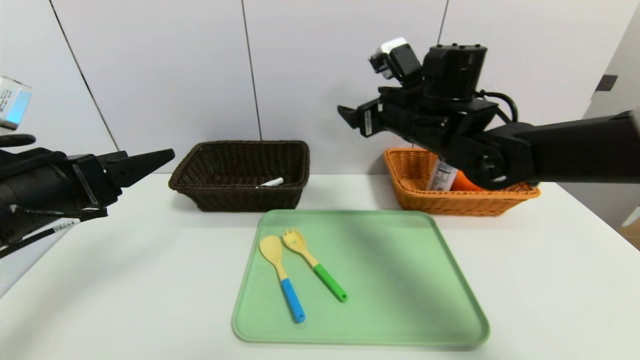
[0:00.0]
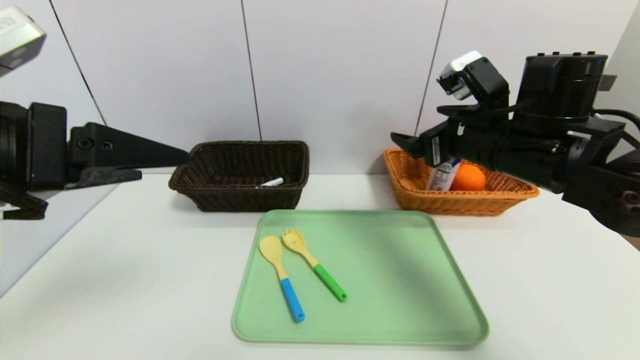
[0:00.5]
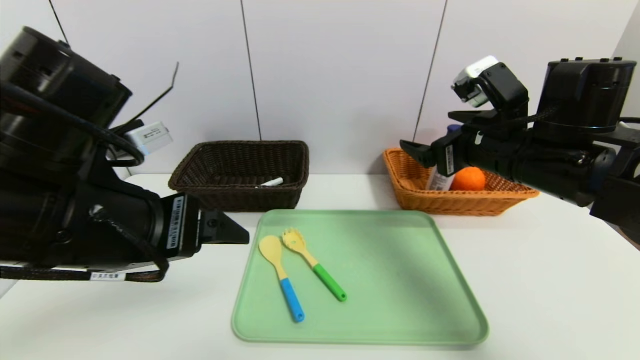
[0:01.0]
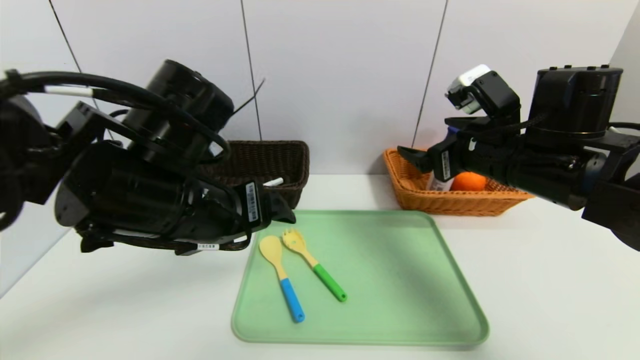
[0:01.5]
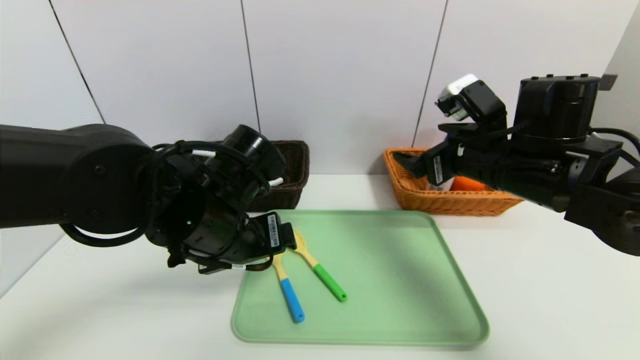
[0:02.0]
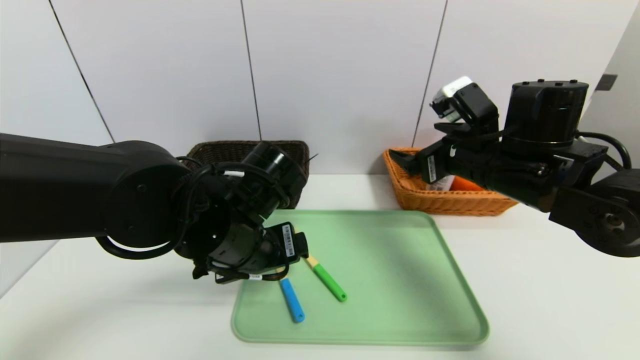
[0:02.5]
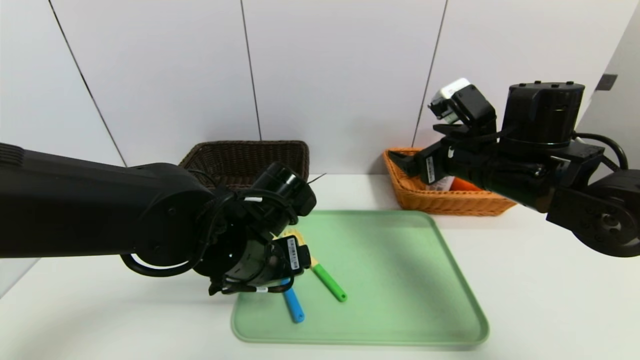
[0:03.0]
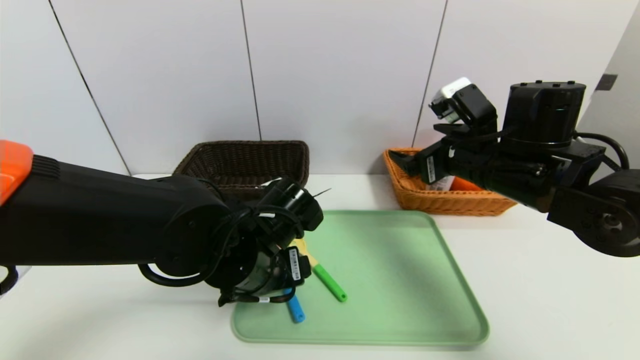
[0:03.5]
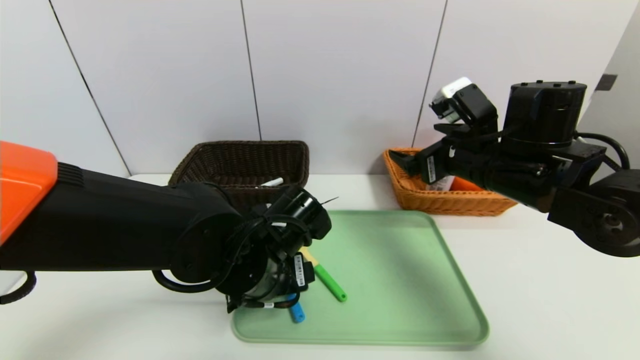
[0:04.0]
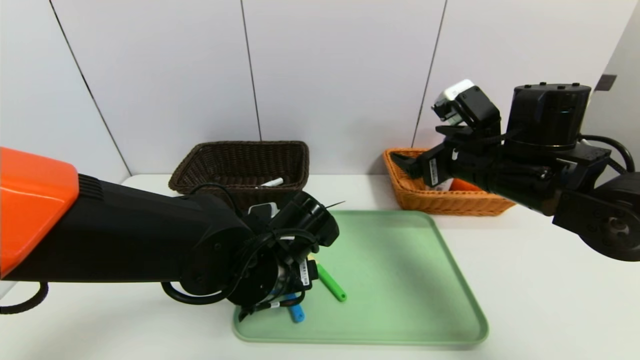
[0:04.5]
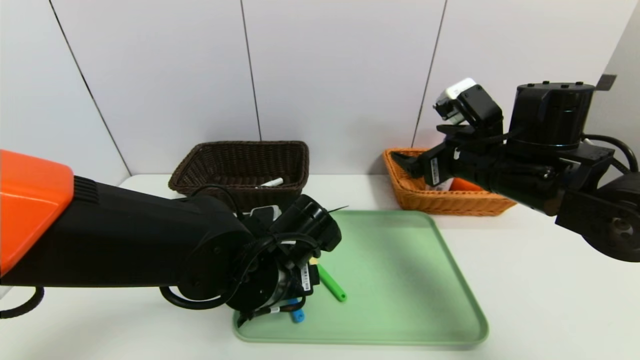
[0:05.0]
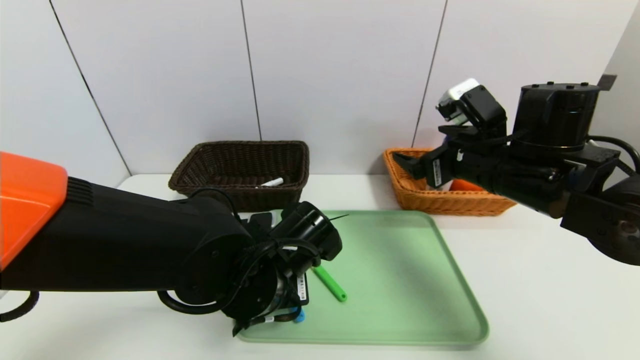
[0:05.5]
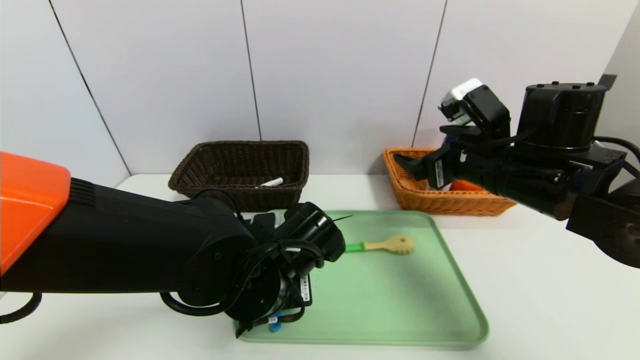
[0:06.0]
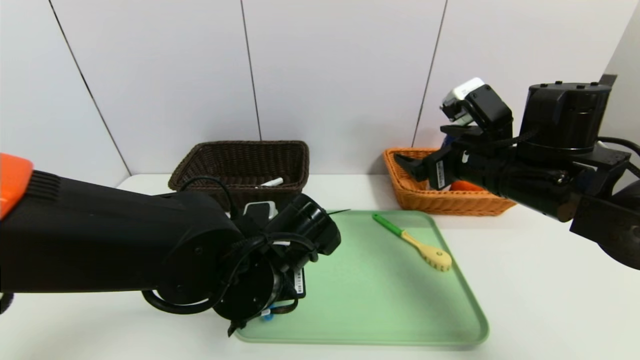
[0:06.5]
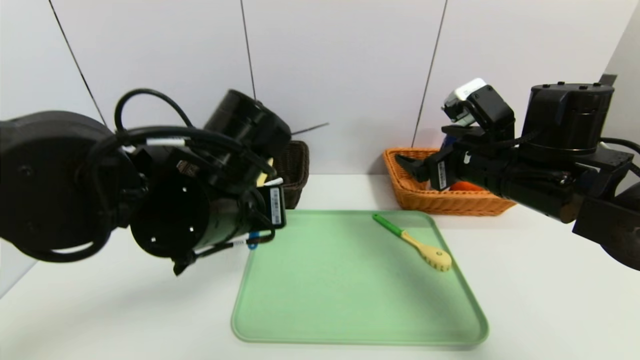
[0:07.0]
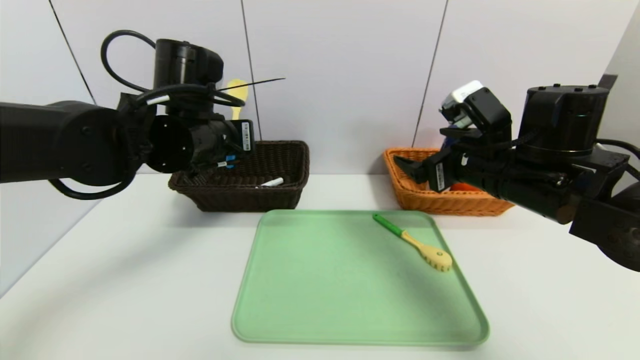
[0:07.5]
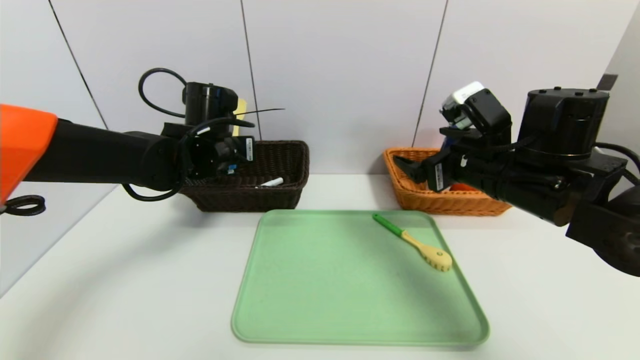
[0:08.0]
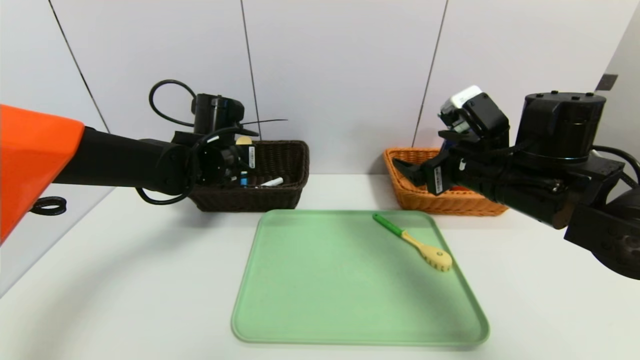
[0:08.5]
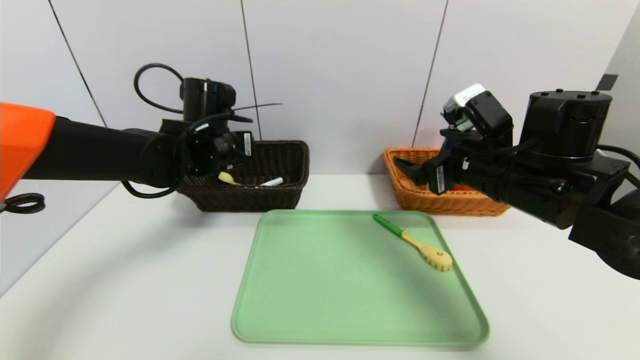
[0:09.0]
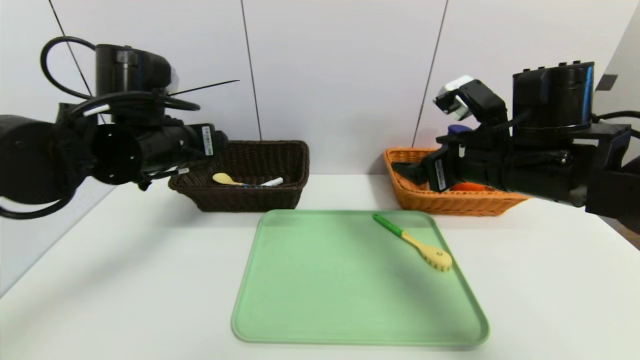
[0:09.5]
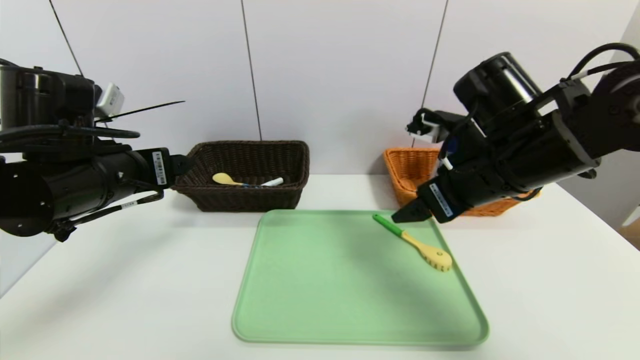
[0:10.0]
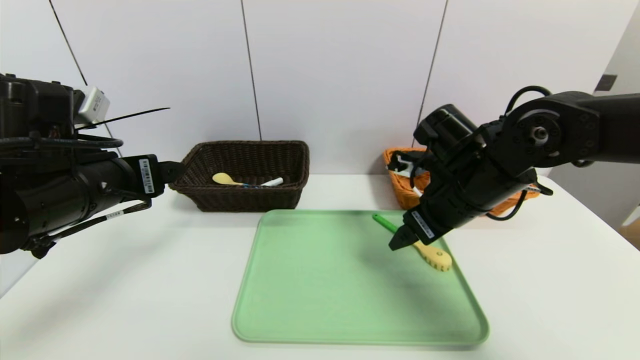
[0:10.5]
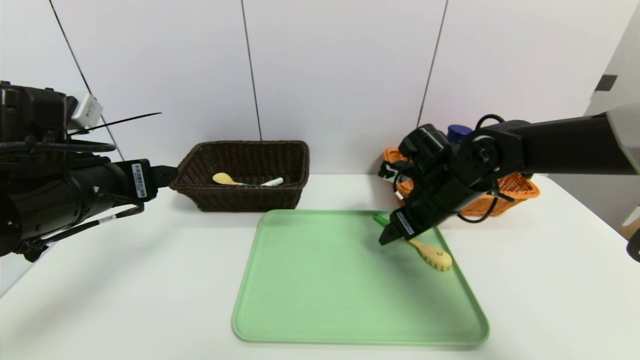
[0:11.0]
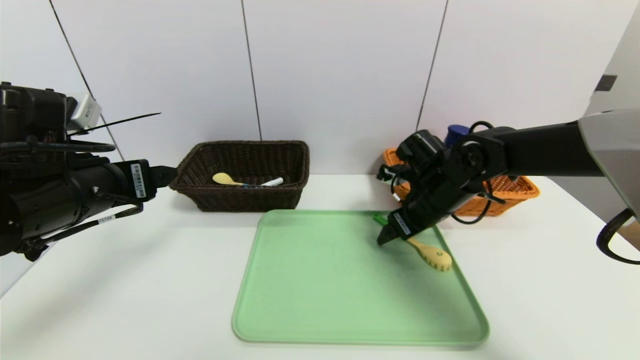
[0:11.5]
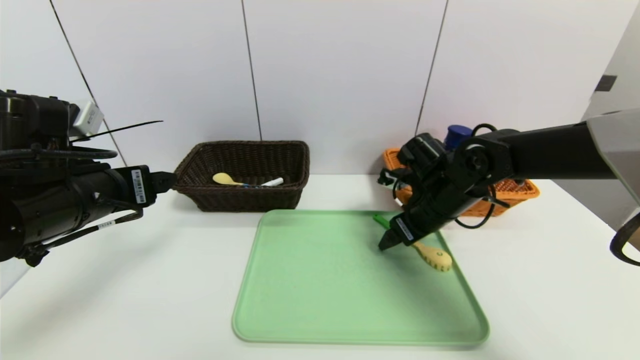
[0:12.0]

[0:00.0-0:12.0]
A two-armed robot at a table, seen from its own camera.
Task of the whole recording: place the food in the right basket with the right gripper, and place the non food items in the left basket with the left gripper.
Step, 0:00.0 to 0:09.0: Grasp the spoon and put it in the left basket.
0:00.0 to 0:02.0: The right gripper goes some 10 cm backward and to the right; the left gripper moves to the right, roughly 15 cm.
0:02.0 to 0:04.0: The left gripper goes roughly 5 cm downward.
0:04.0 to 0:06.0: The left gripper closes its fingers.
0:06.0 to 0:08.0: The left gripper goes some 20 cm forward, to the left and upward.
0:08.0 to 0:10.0: The left gripper travels backward and to the left by some 15 cm, and opens its fingers.
0:10.0 to 0:12.0: The right gripper is displaced downward and forward by some 15 cm.

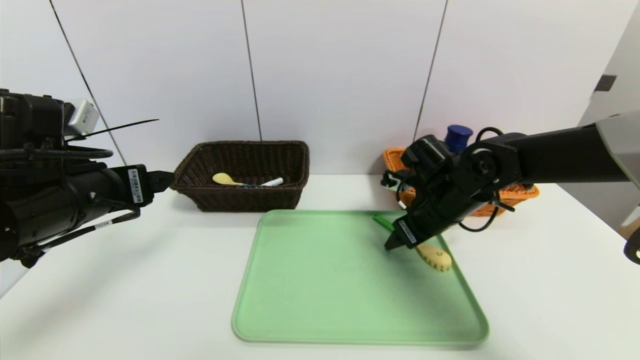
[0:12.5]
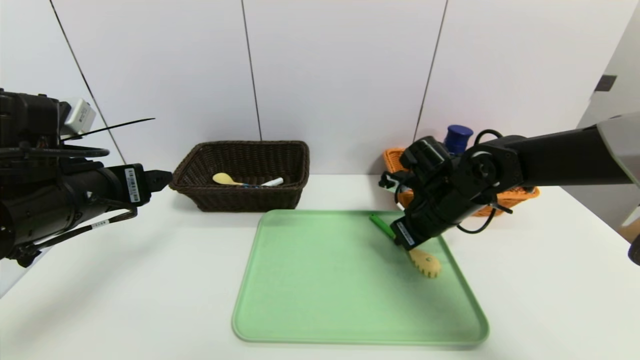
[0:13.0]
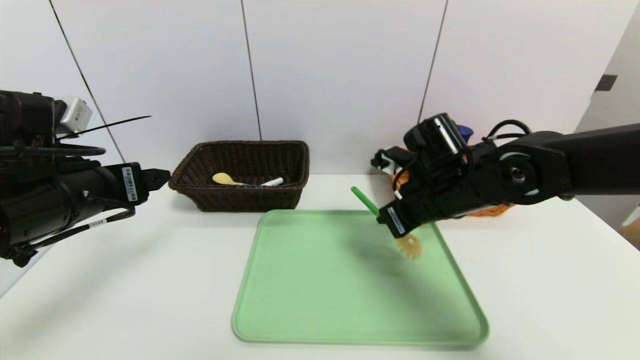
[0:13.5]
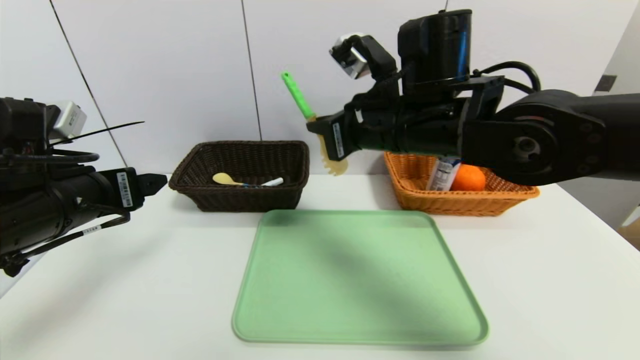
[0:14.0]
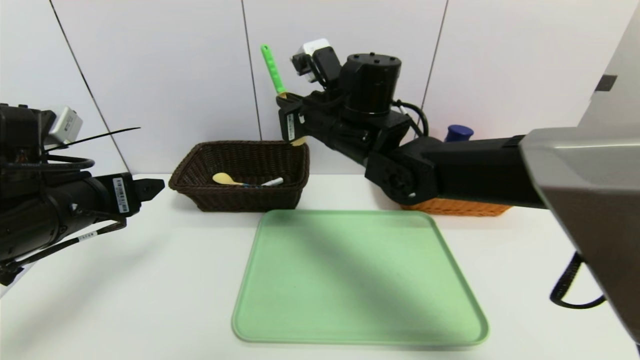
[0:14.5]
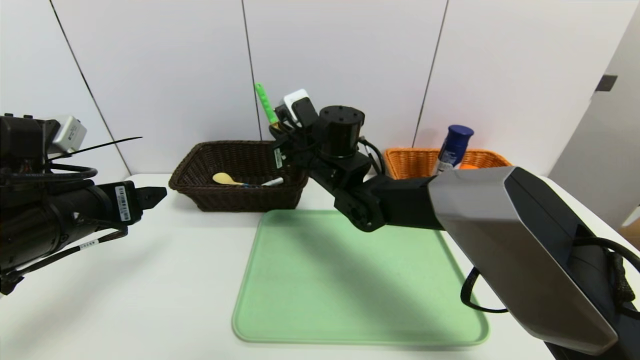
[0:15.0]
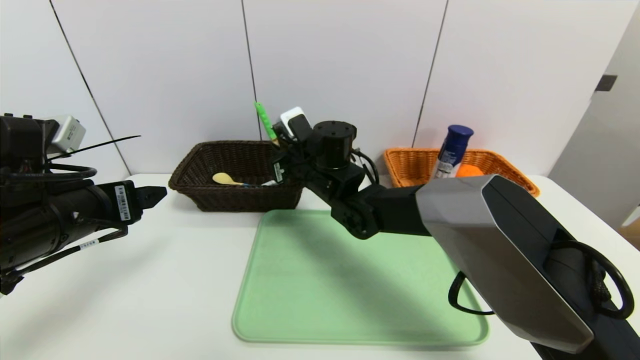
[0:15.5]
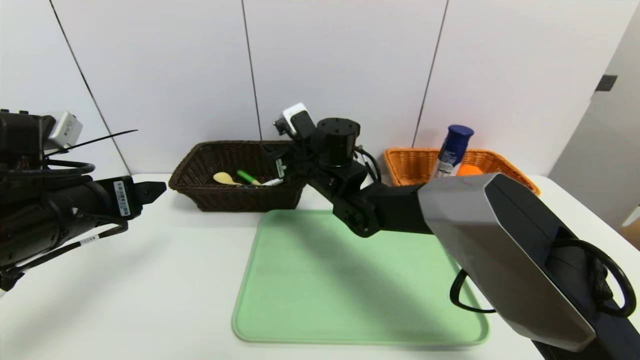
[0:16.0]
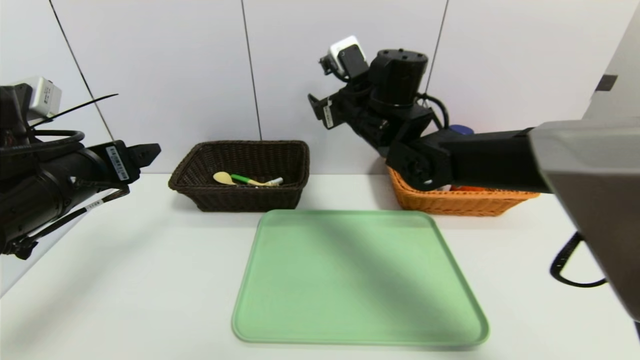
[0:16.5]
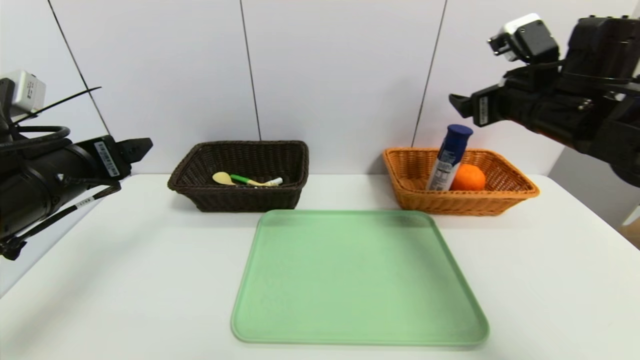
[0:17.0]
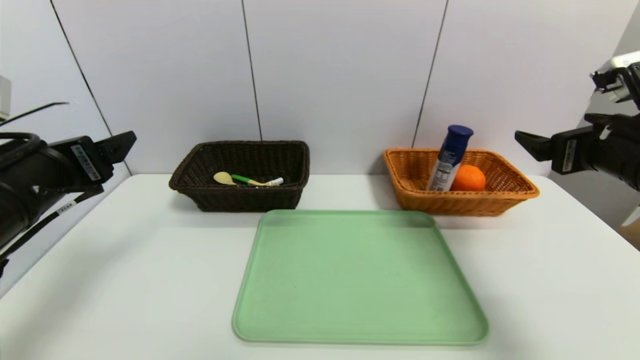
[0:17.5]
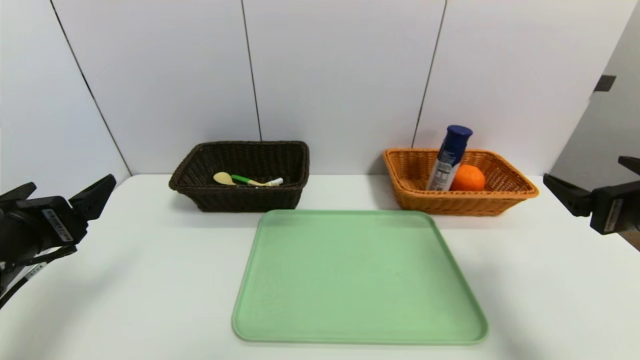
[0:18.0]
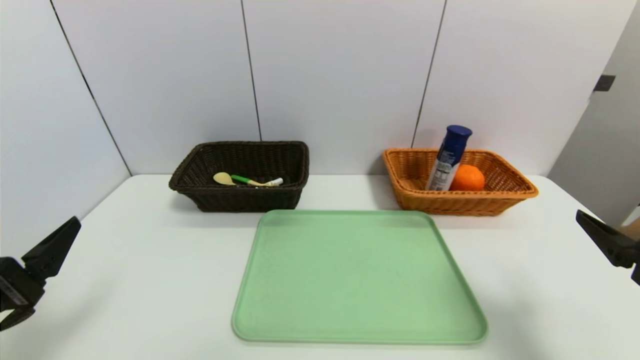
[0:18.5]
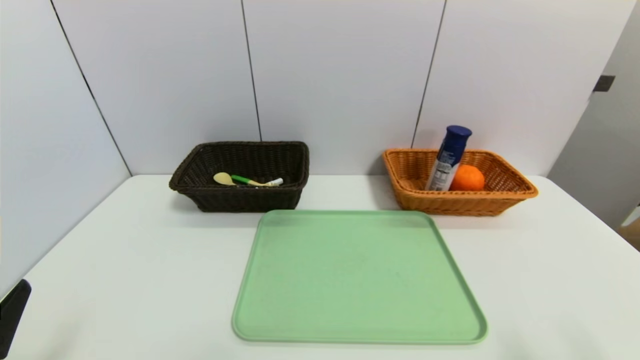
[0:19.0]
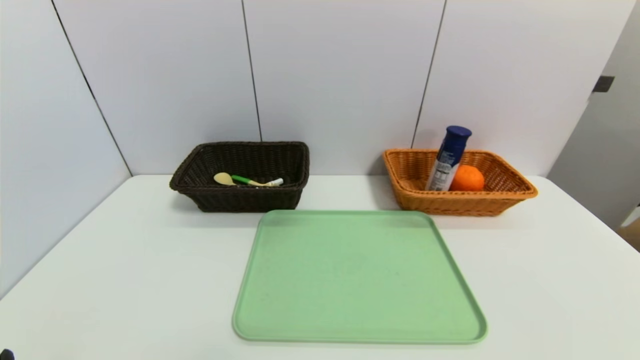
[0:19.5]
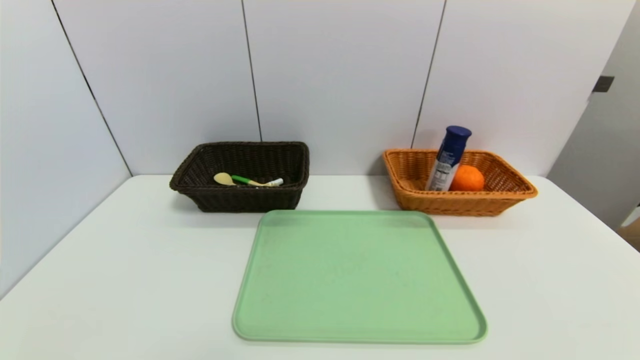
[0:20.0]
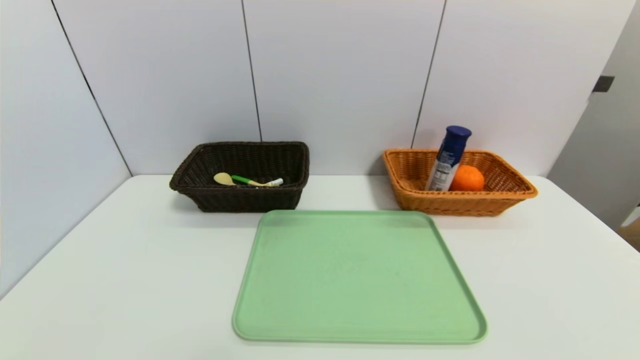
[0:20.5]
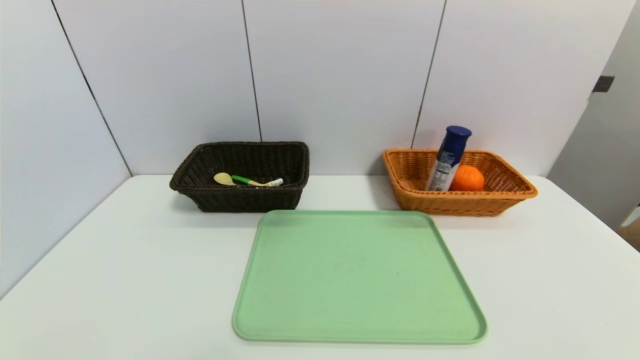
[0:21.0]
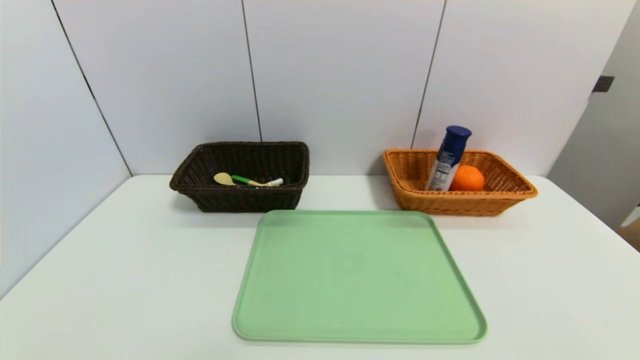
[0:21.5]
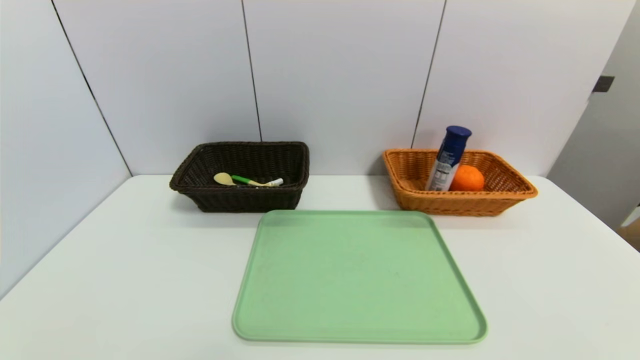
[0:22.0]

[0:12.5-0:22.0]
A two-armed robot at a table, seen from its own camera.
Task of the whole recording: place the food in the right basket with the right gripper, and place the non food items in the left basket with the left gripper.
0:12.5 to 0:14.5: The right gripper is displaced to the left and upward by roughly 20 cm, and closes.
0:14.5 to 0:16.5: The right gripper travels downward and back again, roughly 10 cm each way, and opens its fingers.
0:16.5 to 0:18.0: The left gripper goes approximately 5 cm backward; the right gripper goes roughly 35 cm to the right and backward.
0:18.0 to 0:20.0: Both grippers travel together backward and downward, approximately 20 cm.
